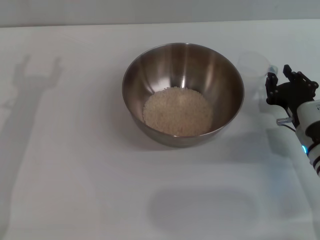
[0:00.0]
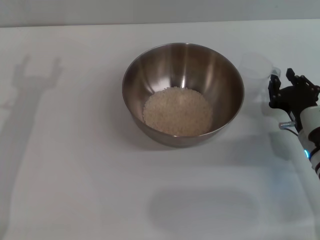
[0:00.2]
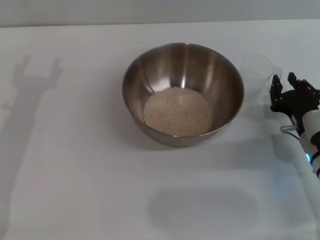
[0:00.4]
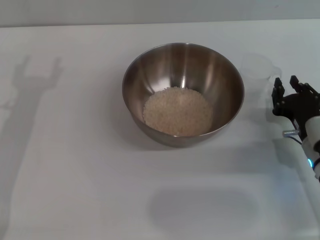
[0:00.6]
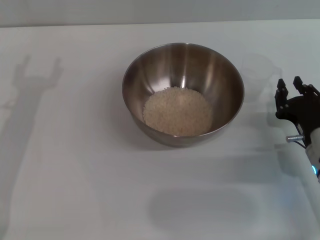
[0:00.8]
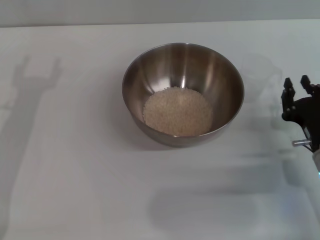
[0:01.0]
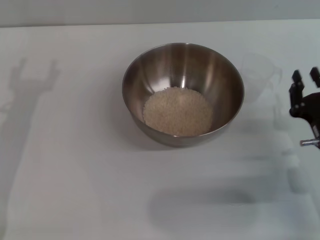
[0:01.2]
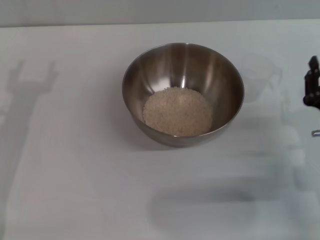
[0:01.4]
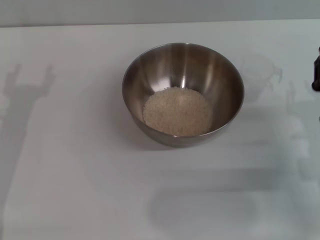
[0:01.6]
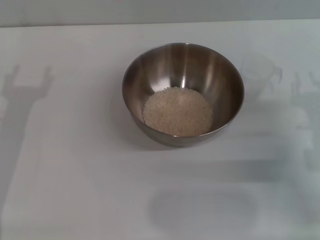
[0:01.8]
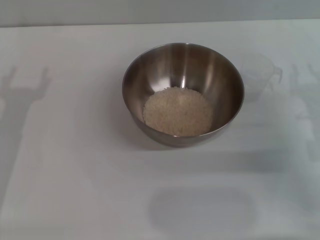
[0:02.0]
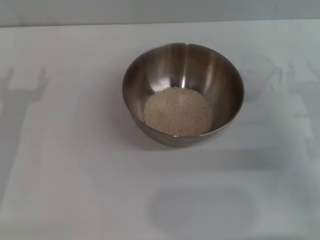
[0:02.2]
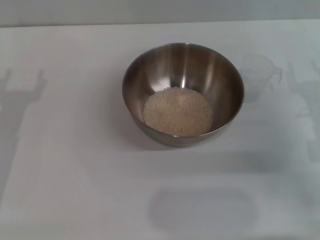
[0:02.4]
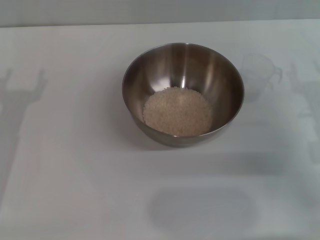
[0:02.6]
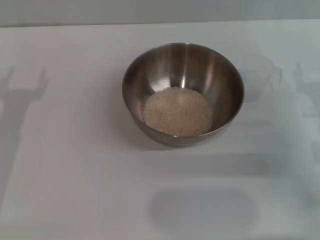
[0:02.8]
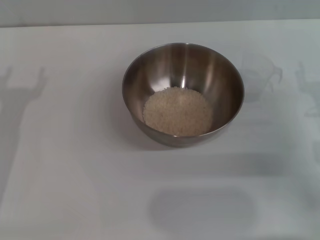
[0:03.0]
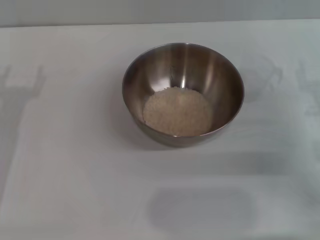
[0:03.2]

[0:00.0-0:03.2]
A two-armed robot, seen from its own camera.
Task of the whole recording: Place the bowl in the middle of the table with one hand and pour the rice from the grain cup into it with the other hand.
0:00.0 to 0:01.6: The right gripper ends up some 5 cm from where it was.
0:01.6 to 0:03.2: The right gripper shifts by some 5 cm.

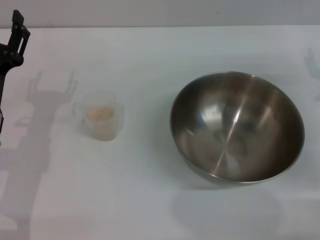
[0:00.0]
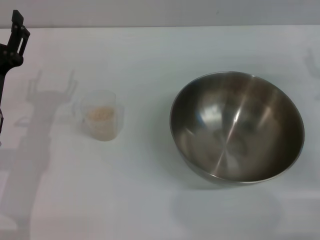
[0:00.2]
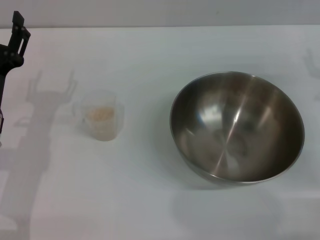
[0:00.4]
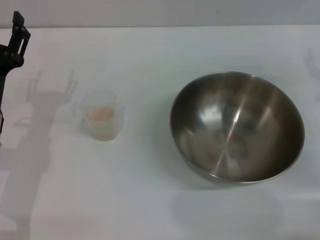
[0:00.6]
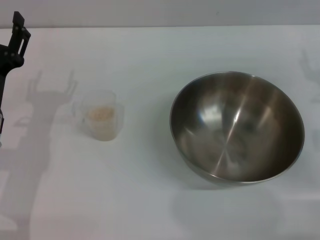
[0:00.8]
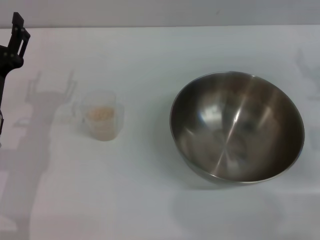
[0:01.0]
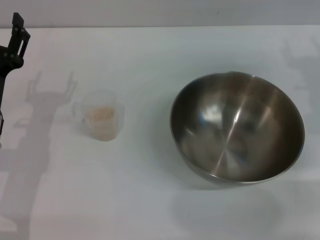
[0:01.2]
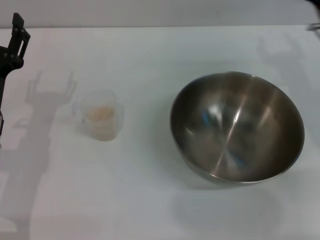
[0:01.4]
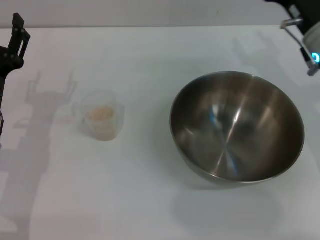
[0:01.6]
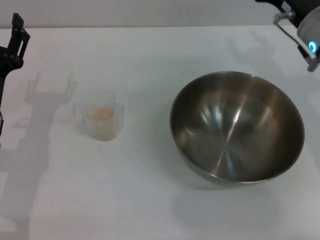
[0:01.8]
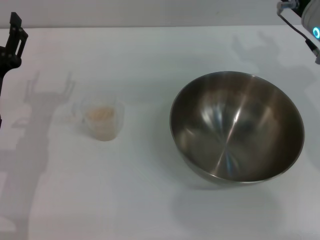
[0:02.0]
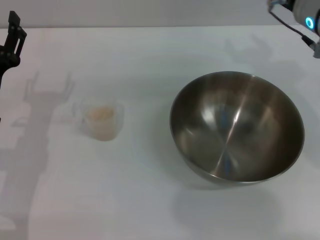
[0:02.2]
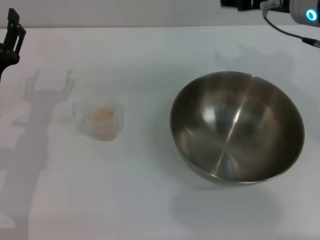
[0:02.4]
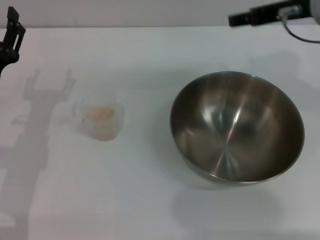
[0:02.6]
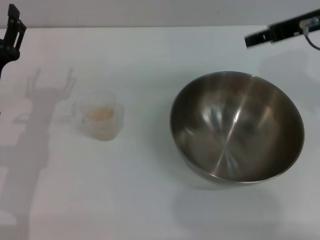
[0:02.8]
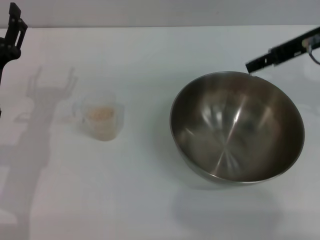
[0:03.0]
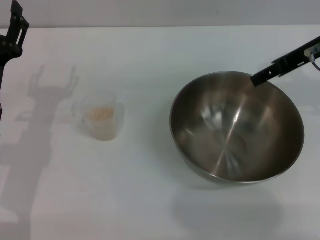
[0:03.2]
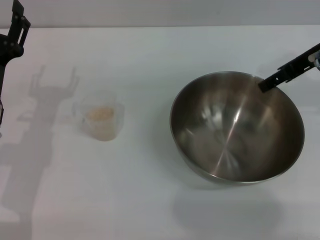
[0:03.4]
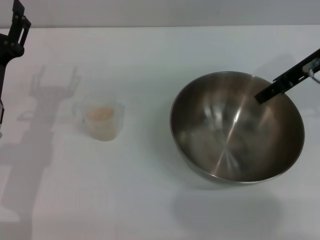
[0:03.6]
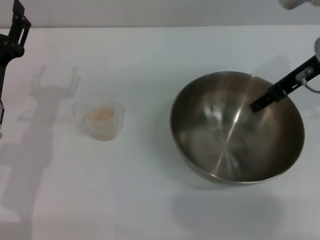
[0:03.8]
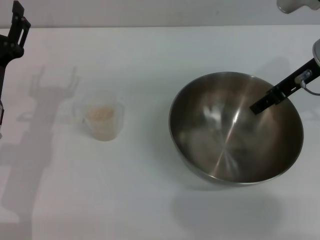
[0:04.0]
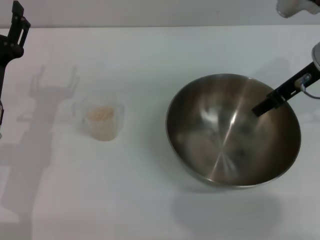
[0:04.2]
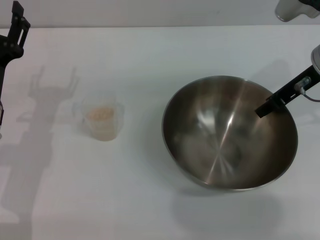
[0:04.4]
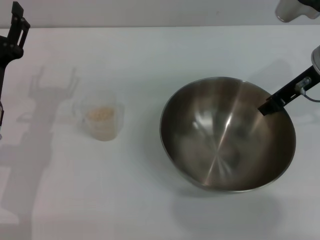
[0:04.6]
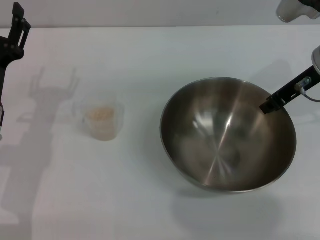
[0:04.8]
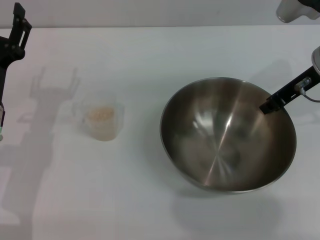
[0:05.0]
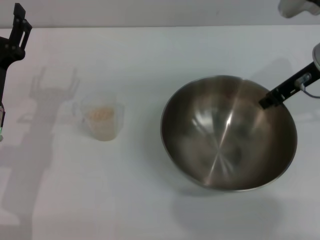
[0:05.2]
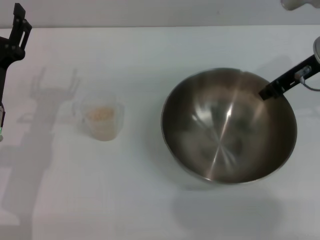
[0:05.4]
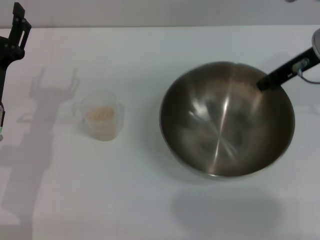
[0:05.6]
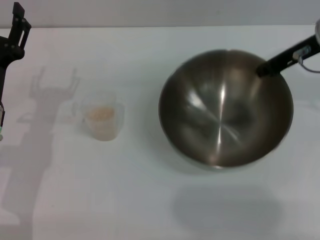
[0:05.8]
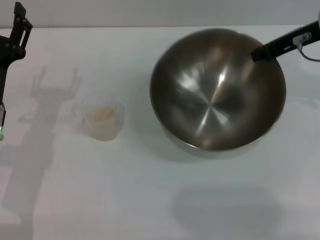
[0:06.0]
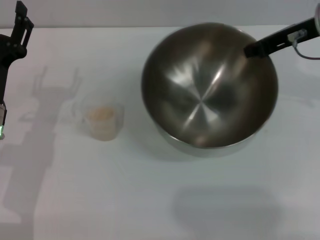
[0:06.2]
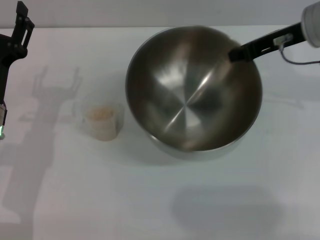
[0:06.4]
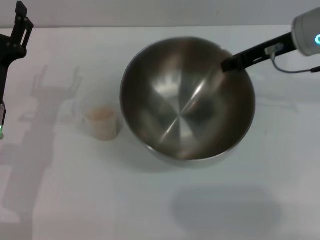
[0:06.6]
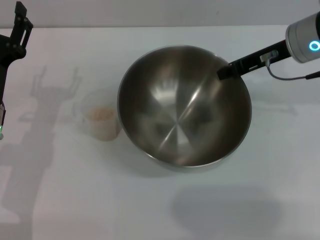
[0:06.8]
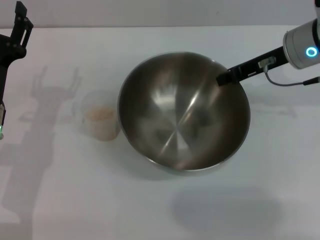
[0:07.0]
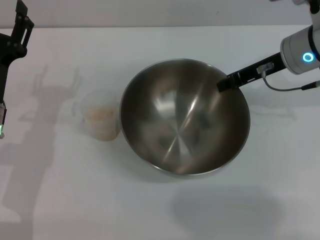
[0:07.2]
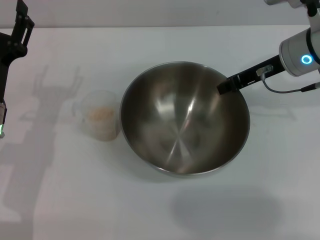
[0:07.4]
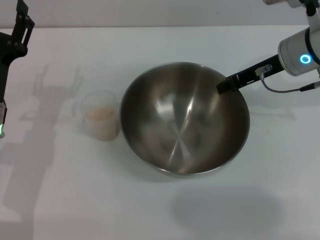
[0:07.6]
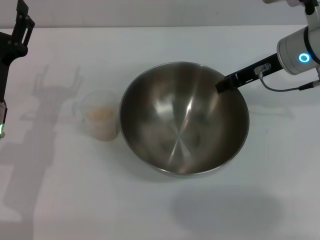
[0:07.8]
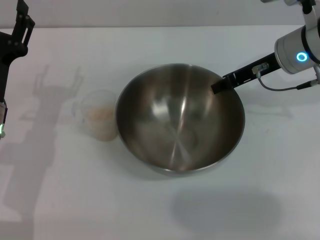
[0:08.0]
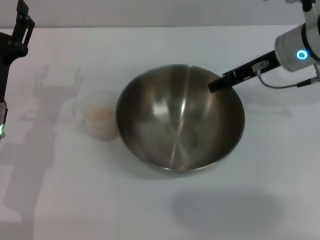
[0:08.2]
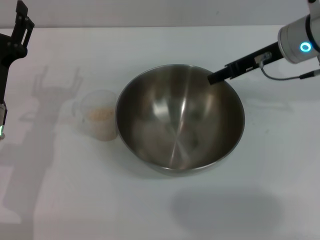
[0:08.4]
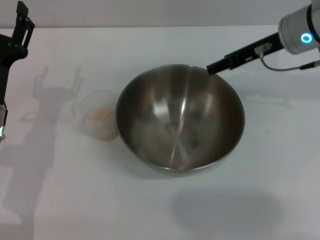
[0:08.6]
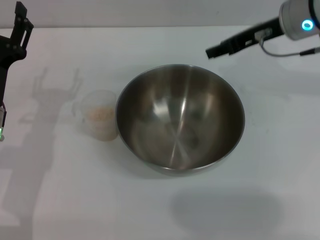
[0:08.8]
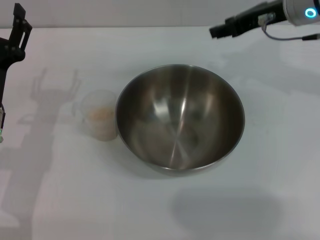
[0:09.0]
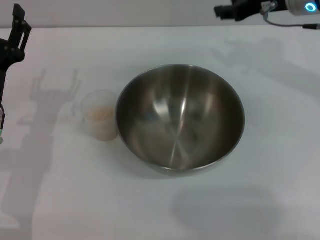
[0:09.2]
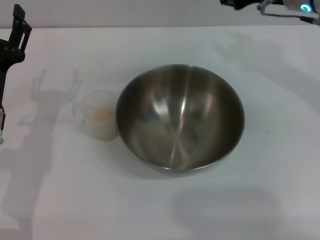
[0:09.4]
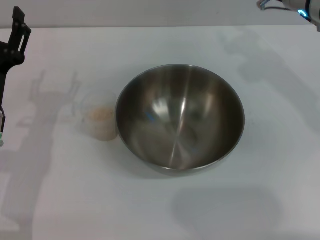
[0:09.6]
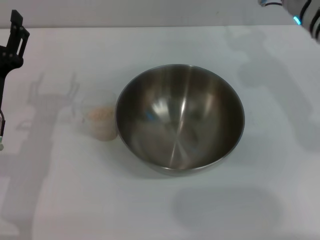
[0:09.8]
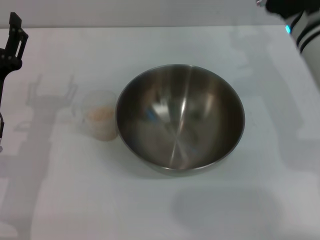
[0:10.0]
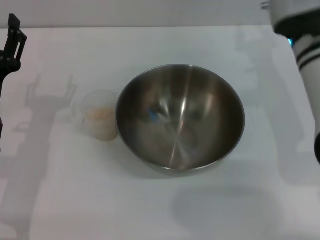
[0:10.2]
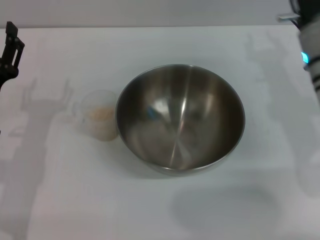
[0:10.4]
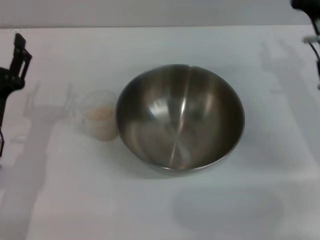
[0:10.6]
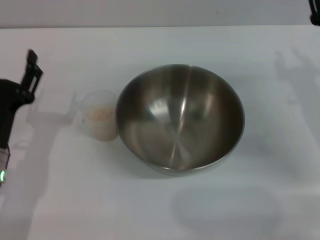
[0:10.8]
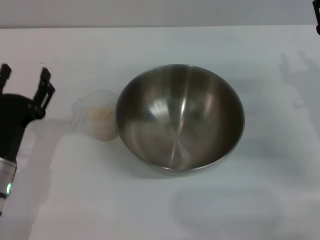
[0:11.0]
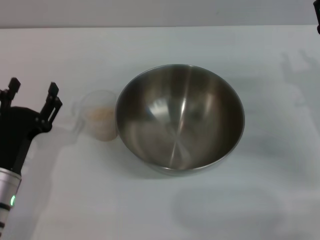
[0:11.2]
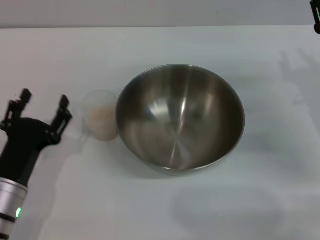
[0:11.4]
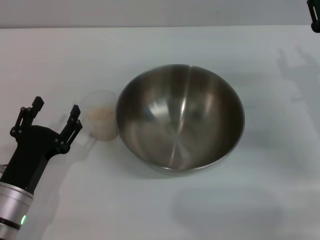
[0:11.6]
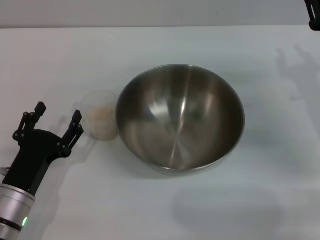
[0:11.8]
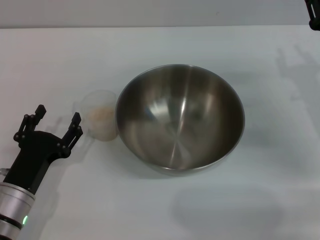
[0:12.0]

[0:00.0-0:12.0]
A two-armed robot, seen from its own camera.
Task of the whole recording: Place the bowl in the middle of the table with one hand and pour the rice from the grain cup into it with the other hand.
Step, 0:00.0 to 0:06.2: Pick up the bowl with the right gripper.
Step, 0:06.4 to 0:08.8: Place the bowl in the center of view with the right gripper.
0:00.0 to 0:01.6: The right gripper shifts some 10 cm to the left.
0:01.6 to 0:03.0: The right gripper moves upward, some 10 cm.
0:03.0 to 0:04.4: The right gripper travels downward by some 5 cm.
0:04.4 to 0:06.0: The right gripper closes its fingers.
0:06.0 to 0:07.6: The right gripper is displaced downward by some 5 cm.
0:07.6 to 0:09.0: The right gripper is displaced upward by some 5 cm, and opens up.
0:09.0 to 0:10.4: The right gripper goes roughly 10 cm downward and backward.
0:10.4 to 0:12.0: The right gripper goes about 5 cm to the right; the left gripper is displaced backward and downward by roughly 10 cm.

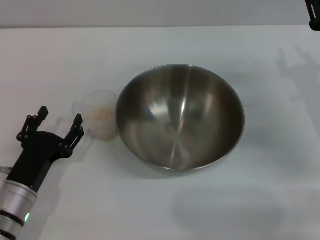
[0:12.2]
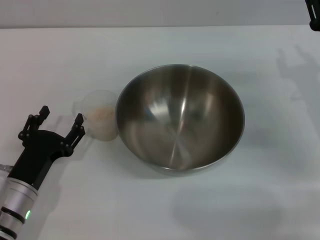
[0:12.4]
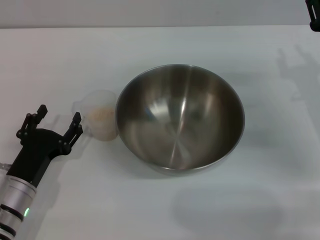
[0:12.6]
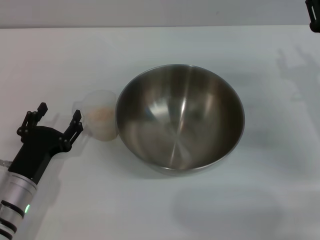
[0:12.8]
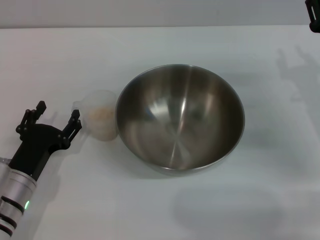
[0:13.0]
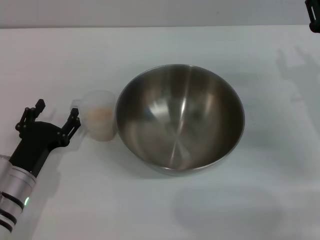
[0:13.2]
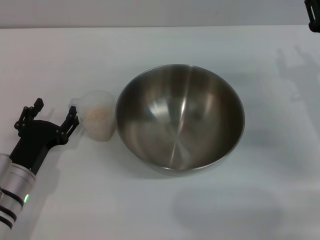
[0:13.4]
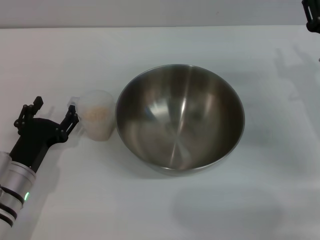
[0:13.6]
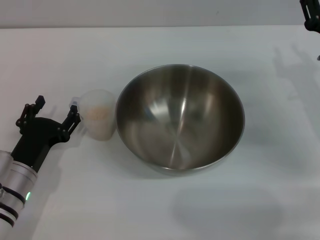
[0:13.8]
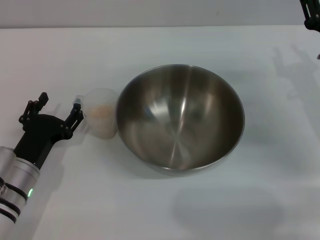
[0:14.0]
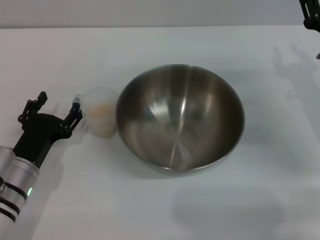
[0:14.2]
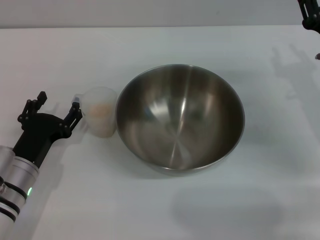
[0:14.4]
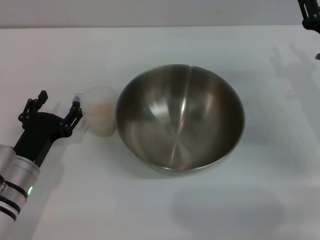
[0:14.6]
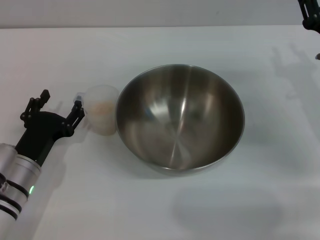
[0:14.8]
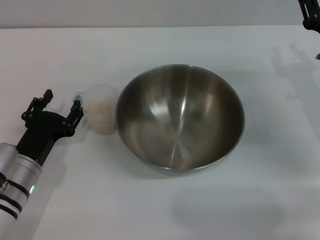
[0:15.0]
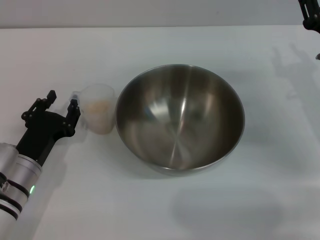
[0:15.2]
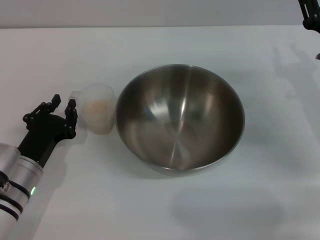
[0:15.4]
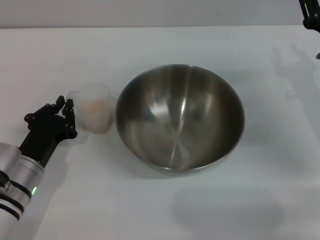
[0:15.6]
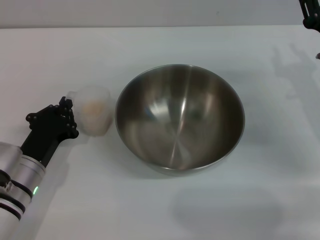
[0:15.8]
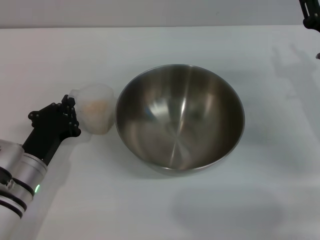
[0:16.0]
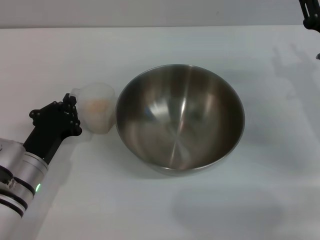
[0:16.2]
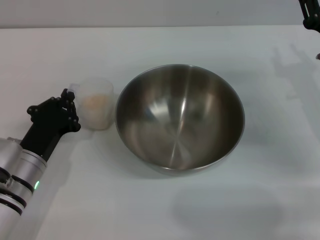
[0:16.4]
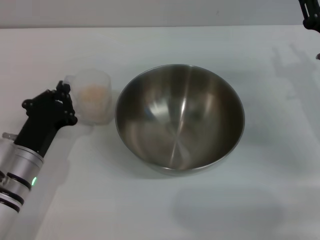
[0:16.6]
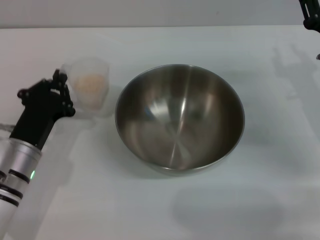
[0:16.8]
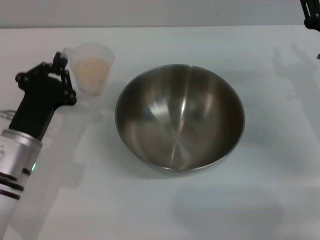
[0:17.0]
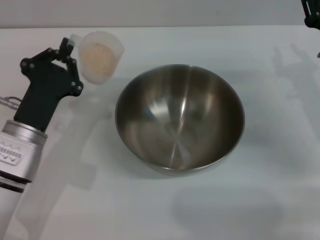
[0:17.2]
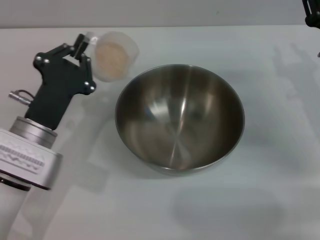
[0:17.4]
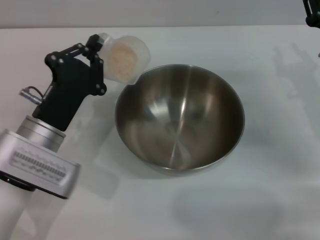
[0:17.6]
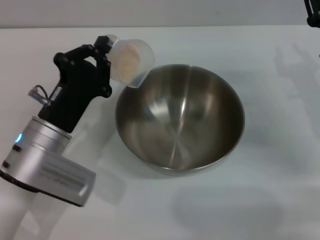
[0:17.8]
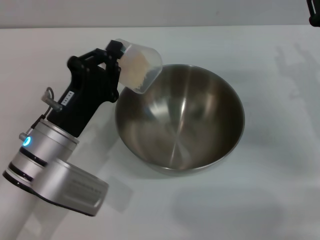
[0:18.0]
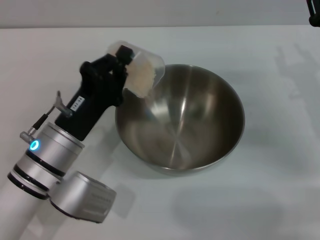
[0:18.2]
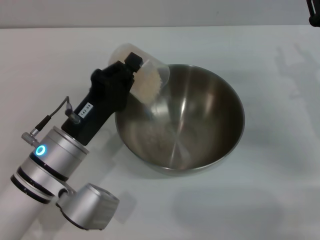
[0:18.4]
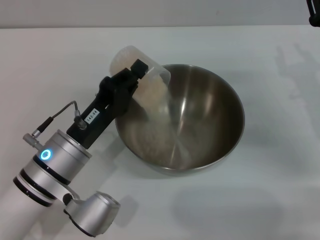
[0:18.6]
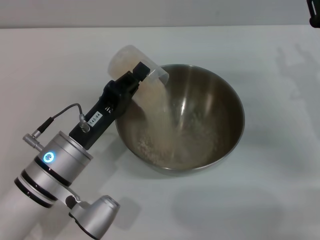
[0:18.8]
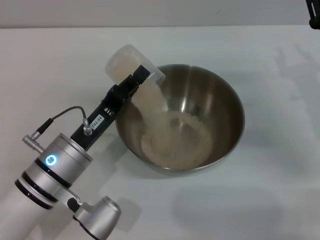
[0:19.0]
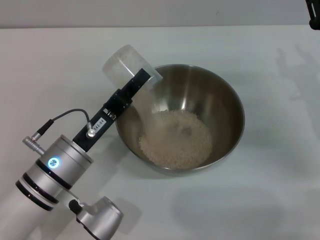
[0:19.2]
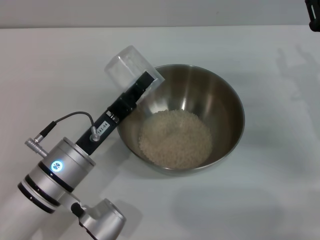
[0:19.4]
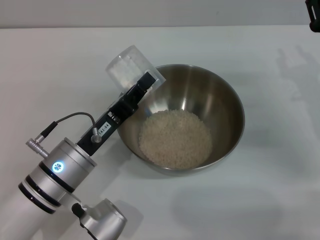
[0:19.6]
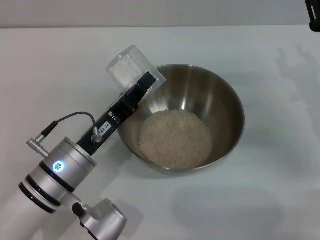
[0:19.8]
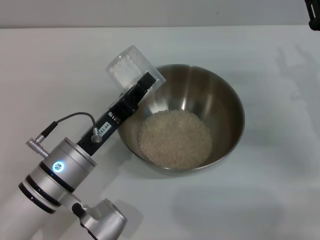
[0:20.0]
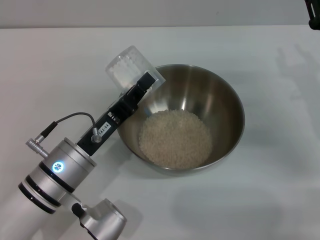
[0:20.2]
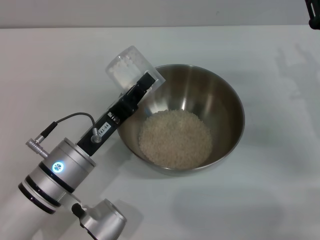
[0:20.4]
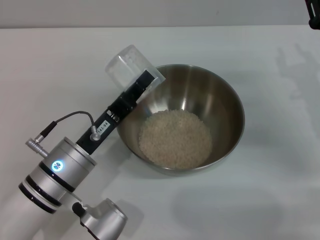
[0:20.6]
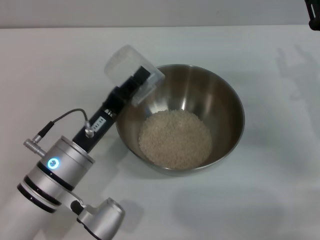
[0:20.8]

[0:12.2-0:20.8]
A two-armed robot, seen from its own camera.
Task of the whole recording: Place the bowl in the middle of the table with one hand and pour the rice from the grain cup into it with the other hand.
Step, 0:12.2 to 0:16.8: Pick up the cup with rice in it with the left gripper.
0:12.2 to 0:13.6: There are only small adjustments of the grippers.
0:13.6 to 0:15.0: The two grippers keep their place.
0:15.0 to 0:16.6: The left gripper closes.
0:16.6 to 0:18.0: The left gripper shifts by roughly 5 cm.
0:19.4 to 0:20.8: There are only small adjustments of the grippers.
